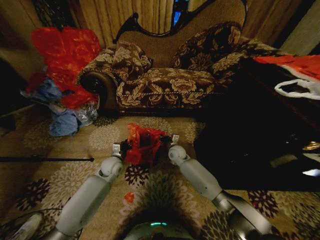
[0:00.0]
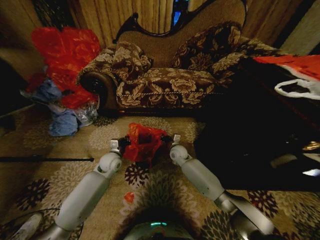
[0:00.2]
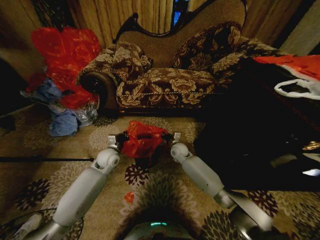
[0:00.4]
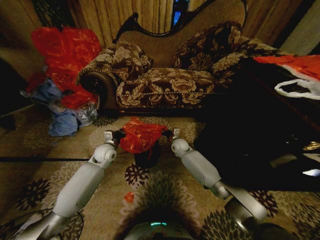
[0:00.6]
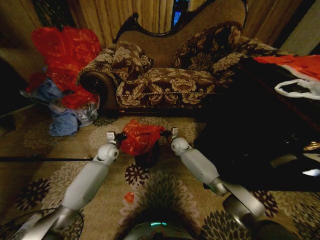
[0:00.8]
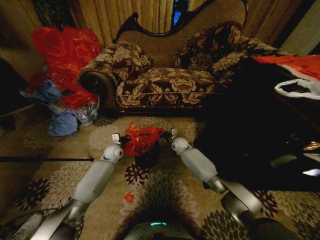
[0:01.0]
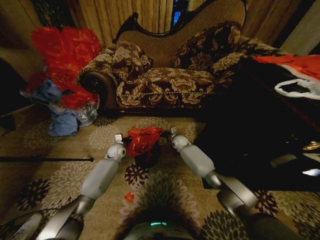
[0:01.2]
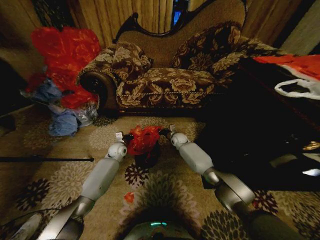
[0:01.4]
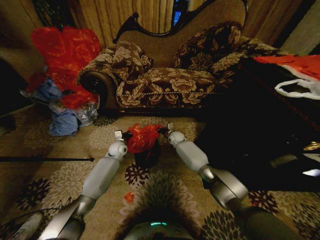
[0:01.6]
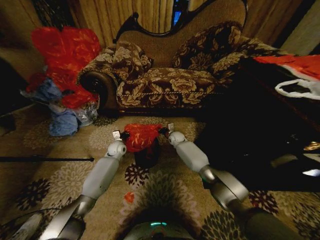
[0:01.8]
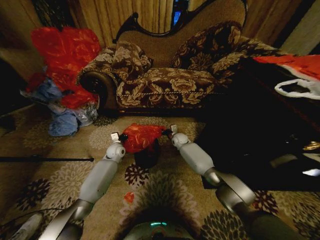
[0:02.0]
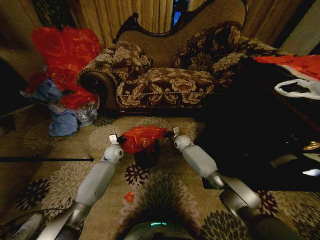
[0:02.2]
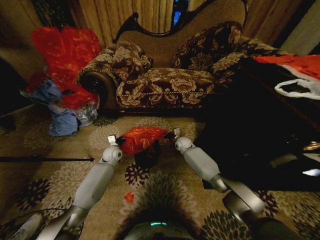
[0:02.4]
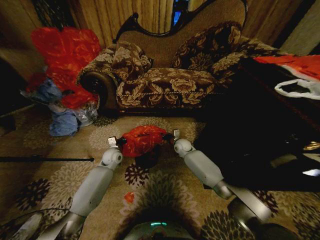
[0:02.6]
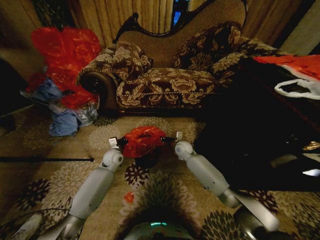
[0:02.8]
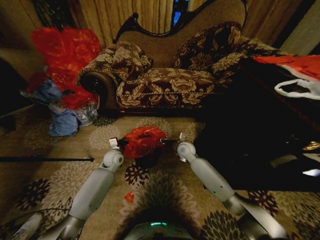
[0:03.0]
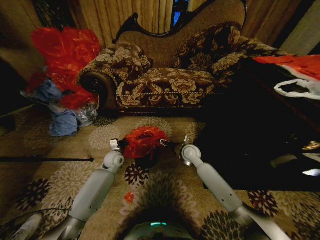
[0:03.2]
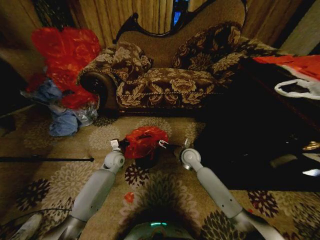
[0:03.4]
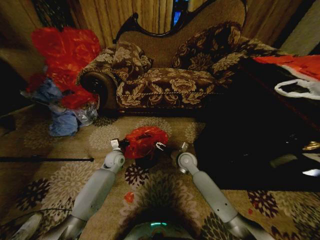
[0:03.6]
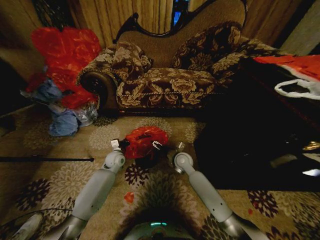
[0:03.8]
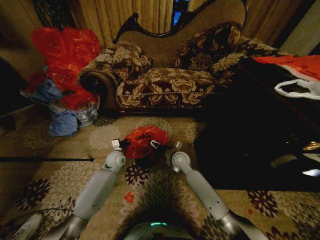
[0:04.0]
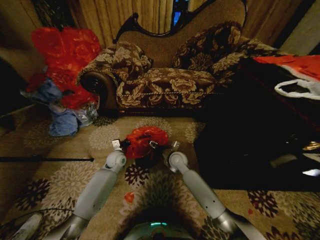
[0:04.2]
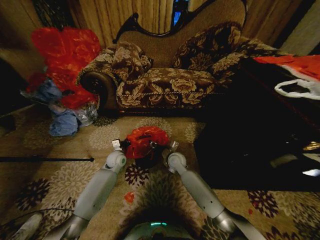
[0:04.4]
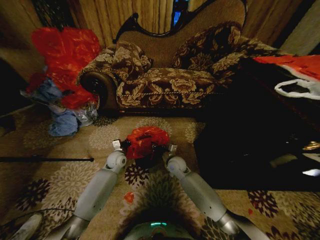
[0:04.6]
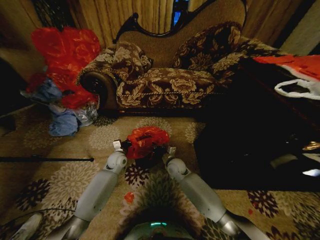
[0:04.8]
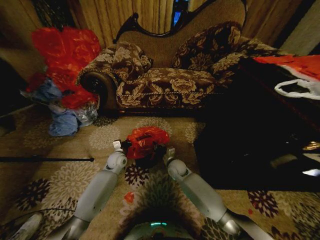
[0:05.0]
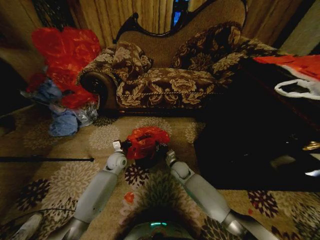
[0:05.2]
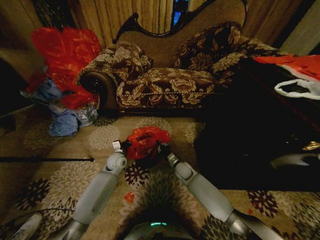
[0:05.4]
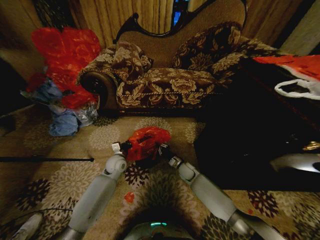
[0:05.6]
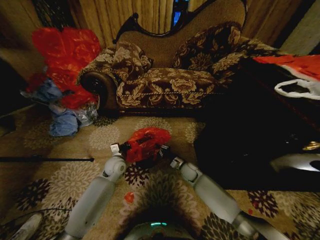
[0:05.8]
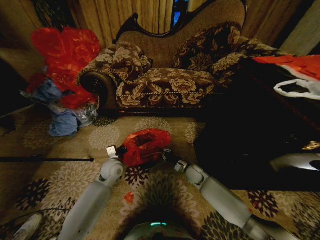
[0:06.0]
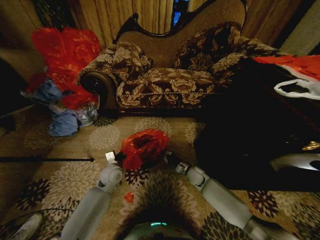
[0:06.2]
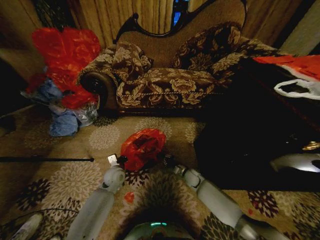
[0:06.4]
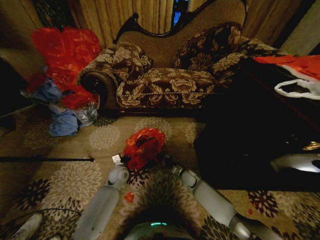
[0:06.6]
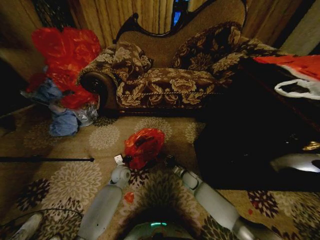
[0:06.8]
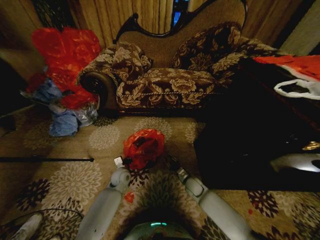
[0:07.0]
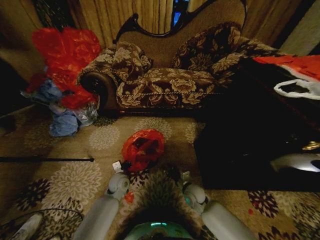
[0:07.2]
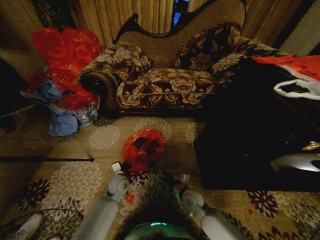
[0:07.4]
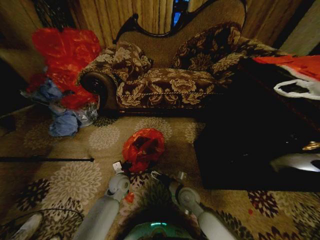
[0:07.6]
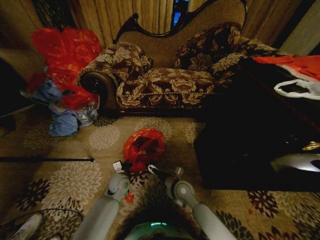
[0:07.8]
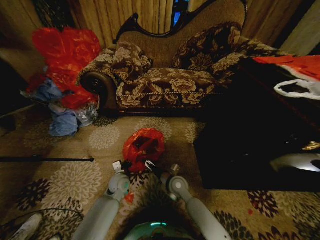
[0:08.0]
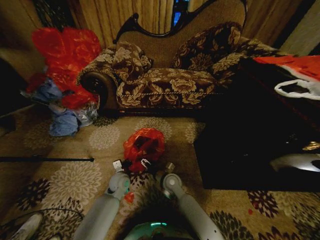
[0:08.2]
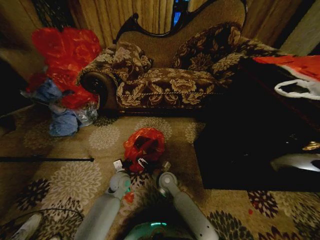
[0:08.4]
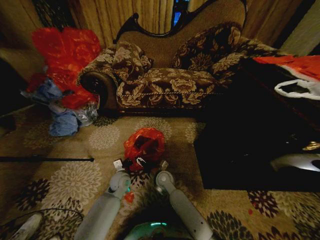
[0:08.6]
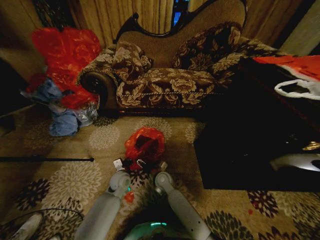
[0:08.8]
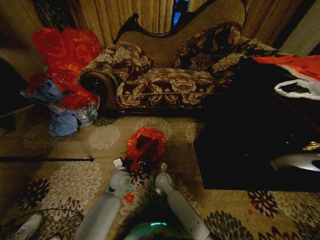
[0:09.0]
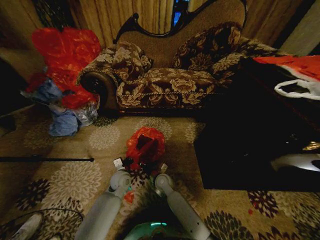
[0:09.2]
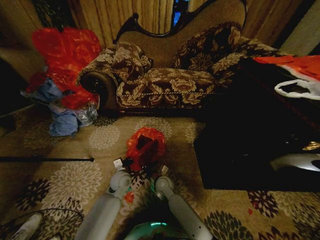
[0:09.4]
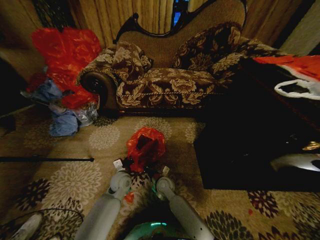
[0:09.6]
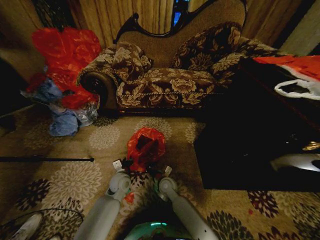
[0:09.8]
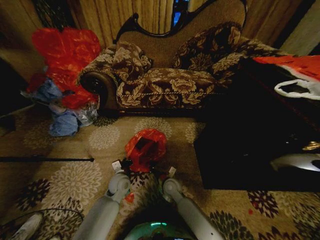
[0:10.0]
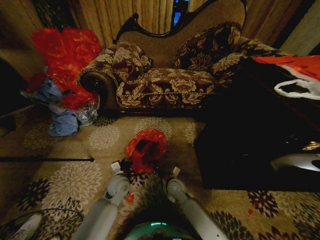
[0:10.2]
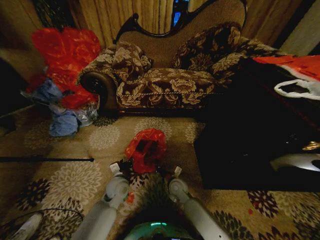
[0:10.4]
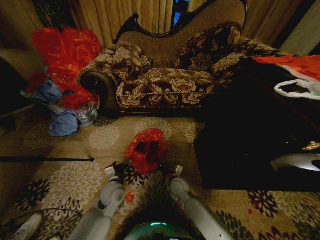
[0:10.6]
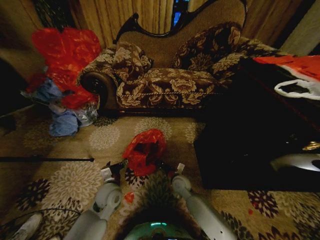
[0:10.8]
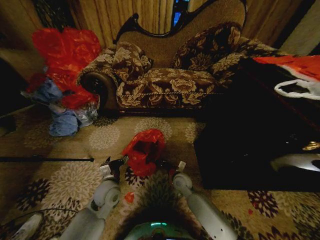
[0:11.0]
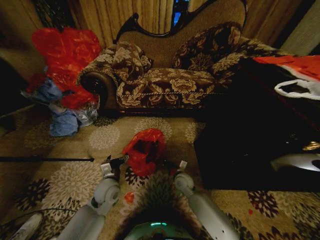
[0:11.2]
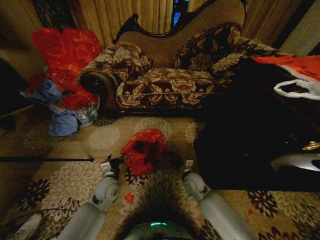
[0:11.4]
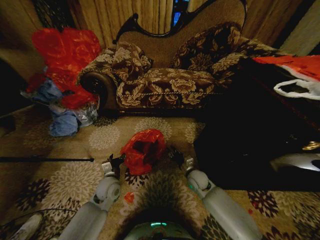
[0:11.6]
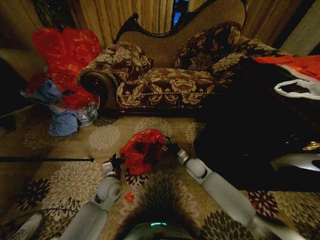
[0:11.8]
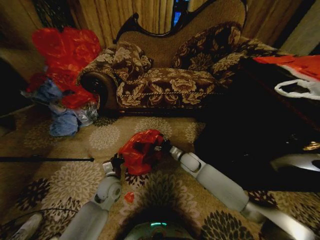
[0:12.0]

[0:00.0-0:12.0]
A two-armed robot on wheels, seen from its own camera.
Task of the whole recording: Place a garbage bag over the trash bin.
0:00.0 to 0:01.6: The grippers both shift forward by roughly 10 cm.
0:01.6 to 0:03.0: The left gripper is displaced backward by approximately 5 cm, while the right gripper moves backward, some 15 cm, and opens.
0:03.0 to 0:04.4: The right gripper is displaced to the left by roughly 5 cm, and opens, then closes again.
0:04.4 to 0:06.0: The left gripper moves backward, some 5 cm. Meanwhile the right gripper goes some 15 cm to the right and downward, and closes its fingers.
0:06.0 to 0:07.6: The left gripper shifts approximately 10 cm downward. Meanwhile the right gripper heads backward and to the left, covering some 15 cm, and opens up.
0:07.6 to 0:09.0: The right gripper moves to the left and forward, about 15 cm.
0:09.0 to 0:10.4: The right gripper travels to the right by about 5 cm, and closes its fingers, while the left gripper ends up approximately 5 cm from where it was, and opens.
0:10.4 to 0:12.0: The right gripper shifts roughly 15 cm forward, upward and to the right, and opens; the left gripper closes up.

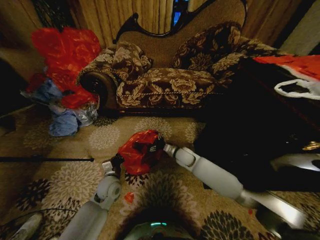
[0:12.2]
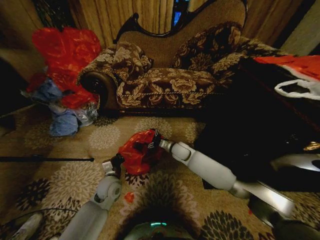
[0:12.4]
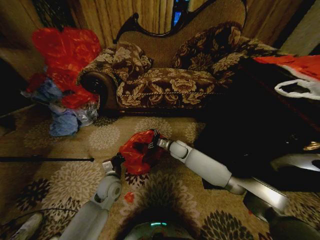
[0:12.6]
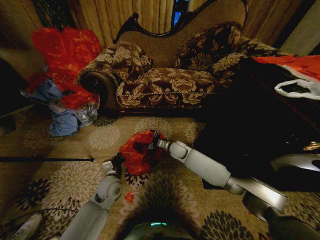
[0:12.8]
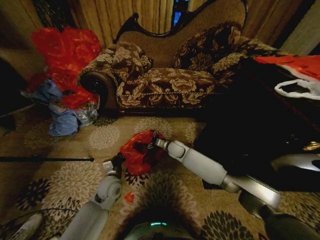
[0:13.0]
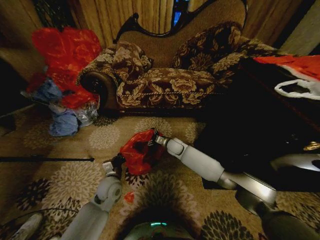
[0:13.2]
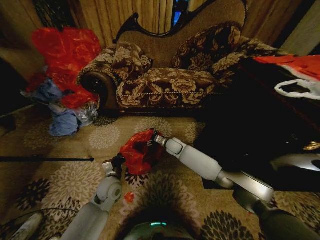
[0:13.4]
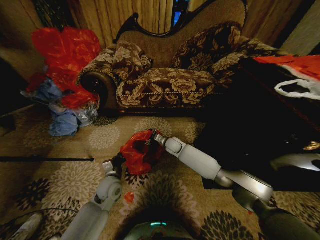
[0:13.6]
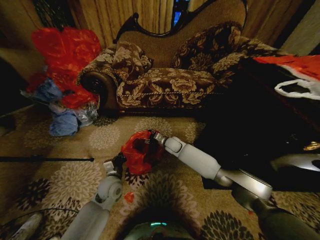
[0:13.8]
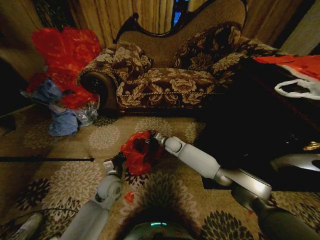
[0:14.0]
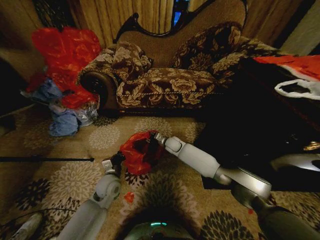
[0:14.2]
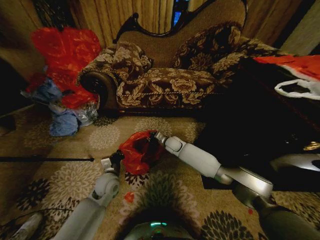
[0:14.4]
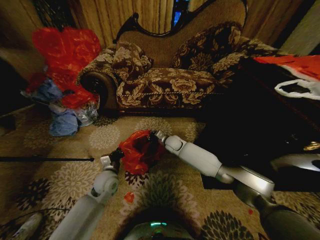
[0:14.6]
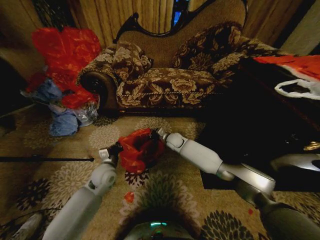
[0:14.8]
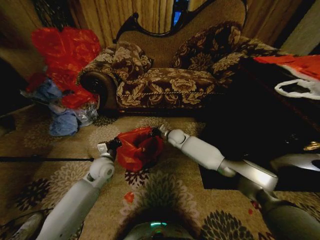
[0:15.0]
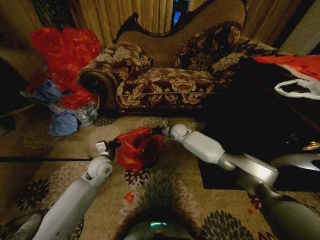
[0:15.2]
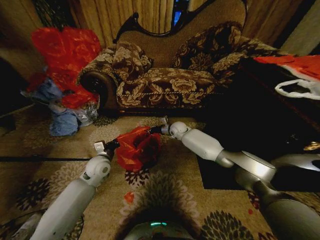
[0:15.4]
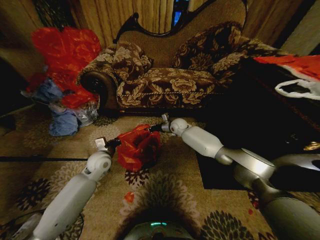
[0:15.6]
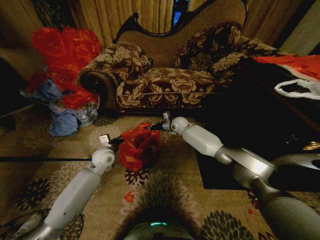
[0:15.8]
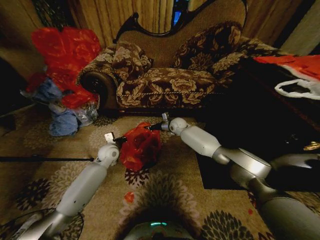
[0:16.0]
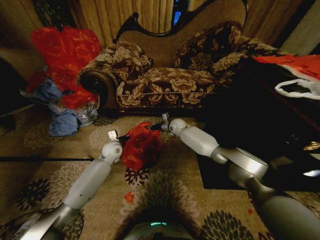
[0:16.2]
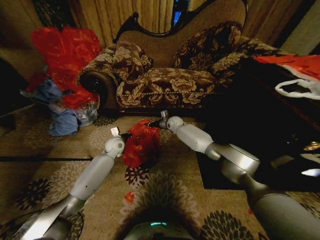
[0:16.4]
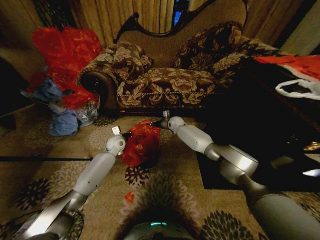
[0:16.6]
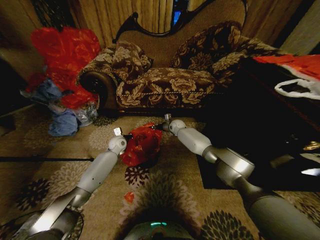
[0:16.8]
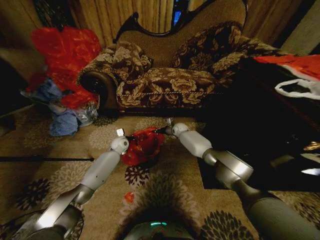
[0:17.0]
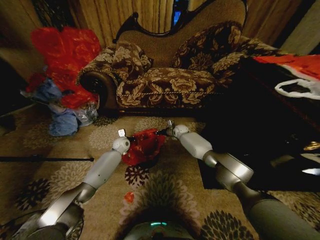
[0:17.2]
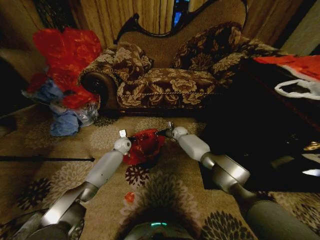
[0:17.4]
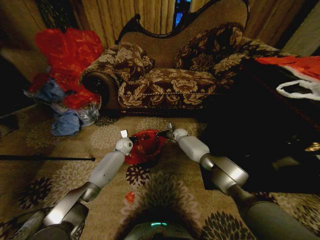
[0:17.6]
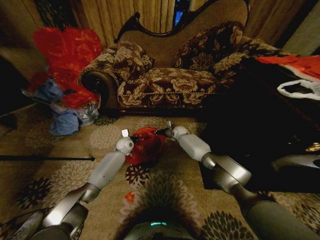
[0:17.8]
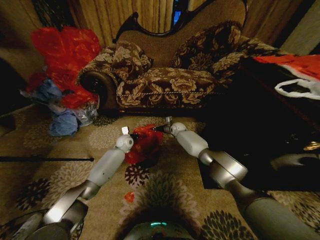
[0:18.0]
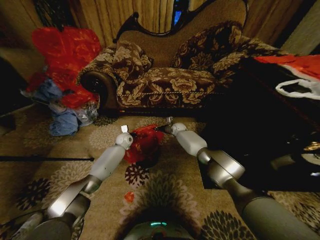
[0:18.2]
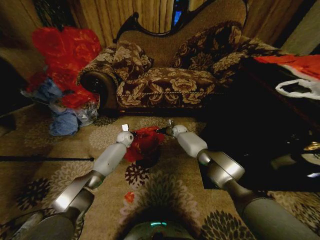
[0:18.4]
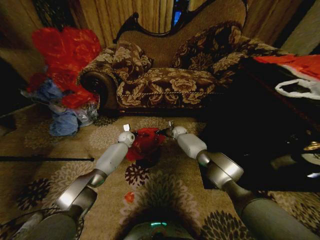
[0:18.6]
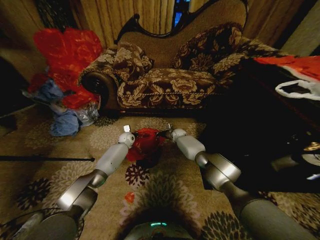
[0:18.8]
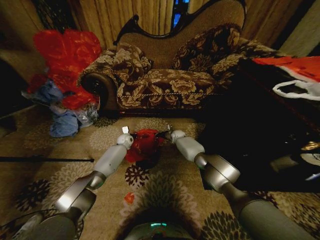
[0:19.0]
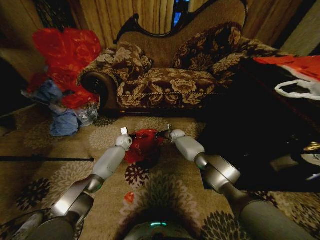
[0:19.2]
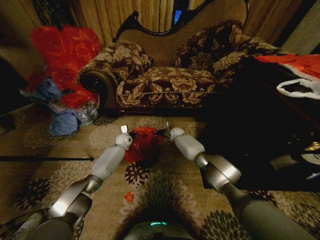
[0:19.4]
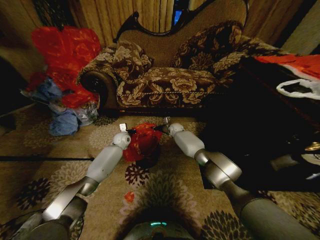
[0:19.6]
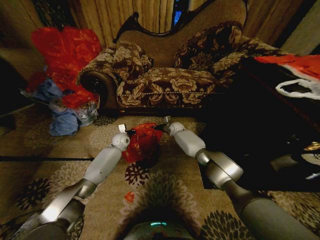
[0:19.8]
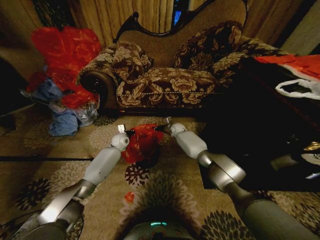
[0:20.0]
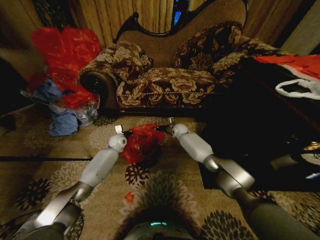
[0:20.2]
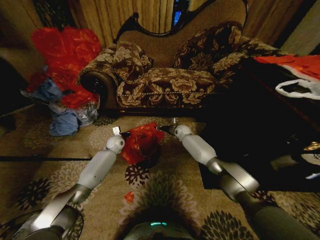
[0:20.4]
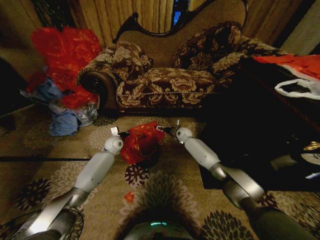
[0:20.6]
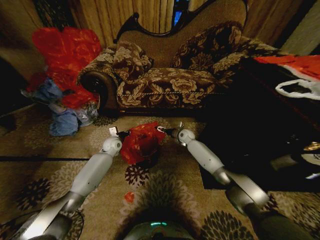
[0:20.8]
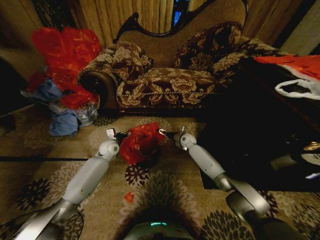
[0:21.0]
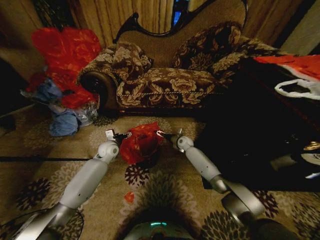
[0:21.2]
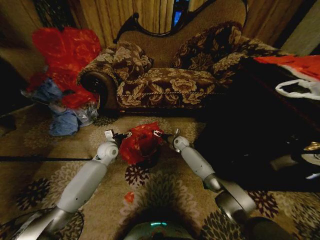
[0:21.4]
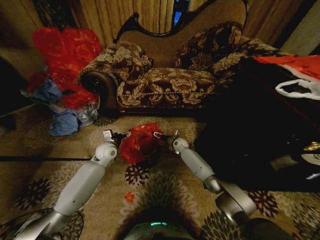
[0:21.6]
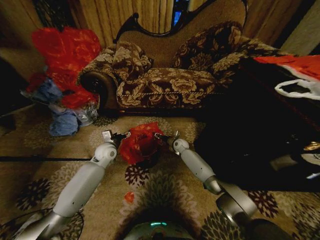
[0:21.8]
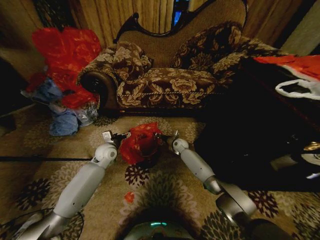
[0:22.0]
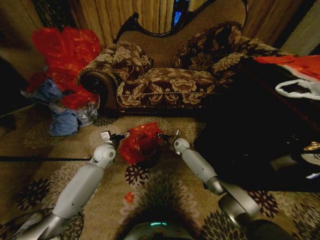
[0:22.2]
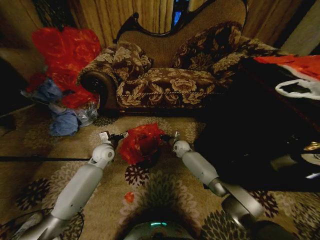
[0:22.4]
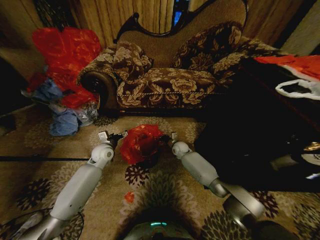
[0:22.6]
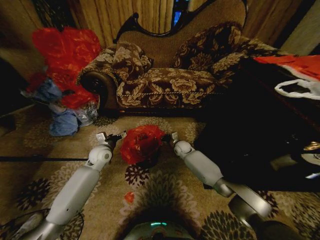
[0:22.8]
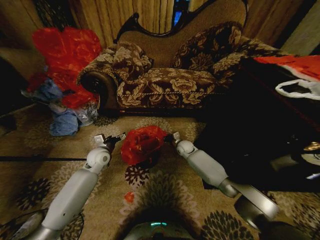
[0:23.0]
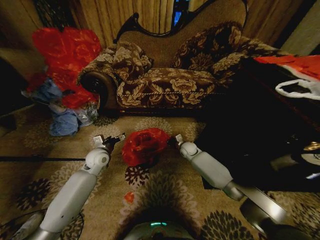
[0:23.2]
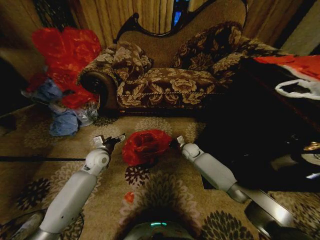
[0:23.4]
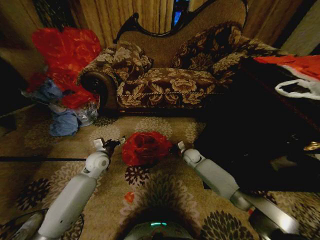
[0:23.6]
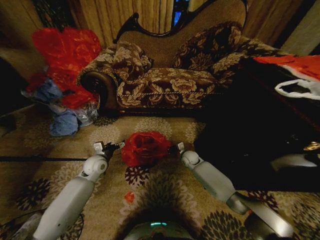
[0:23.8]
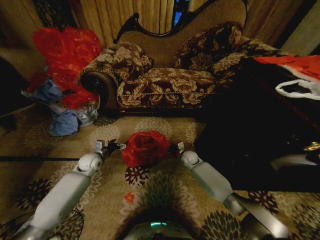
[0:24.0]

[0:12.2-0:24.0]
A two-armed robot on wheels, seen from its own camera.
Task of the whole recording: Place a garbage bag over the trash bin.
0:12.2 to 0:13.6: The right gripper heads forward, covering about 5 cm.
0:13.6 to 0:15.2: The two grippers go some 10 cm forward and upward. The right gripper closes.
0:15.2 to 0:16.6: The right gripper travels forward by roughly 5 cm. The left gripper is displaced forward by some 15 cm.
0:16.6 to 0:18.2: The right gripper heads downward, covering approximately 5 cm; the left gripper shifts roughly 5 cm forward.
0:18.2 to 0:19.6: The grippers stay close to where they were, moving slightly.
0:19.6 to 0:21.0: The left gripper shifts about 10 cm backward, and opens up; the right gripper goes approximately 10 cm backward and to the right, and opens its fingers.
0:21.0 to 0:22.6: The left gripper ends up about 5 cm from where it was. The right gripper changes place by about 5 cm, and closes its fingers.
0:22.6 to 0:24.0: The right gripper is displaced backward and to the right by about 5 cm; the left gripper is displaced to the left by some 5 cm.
